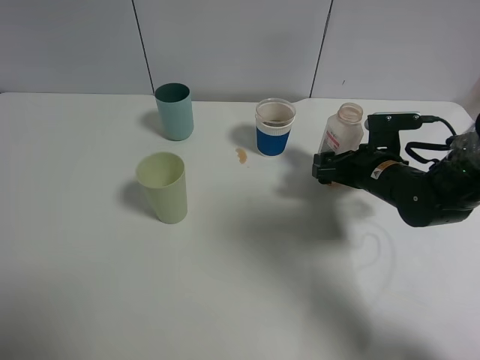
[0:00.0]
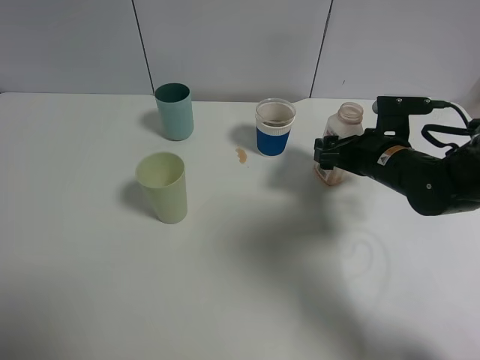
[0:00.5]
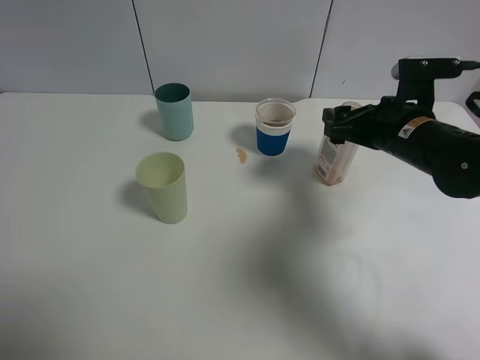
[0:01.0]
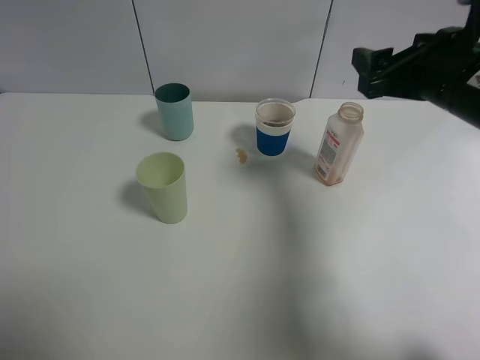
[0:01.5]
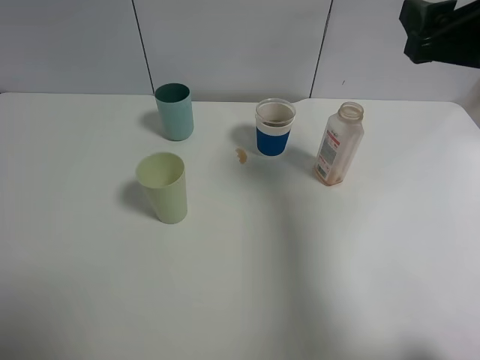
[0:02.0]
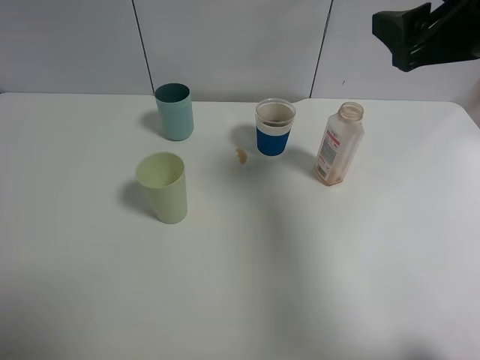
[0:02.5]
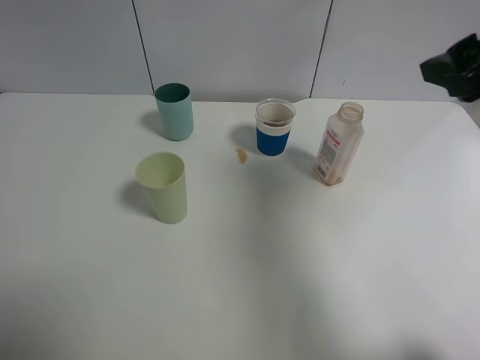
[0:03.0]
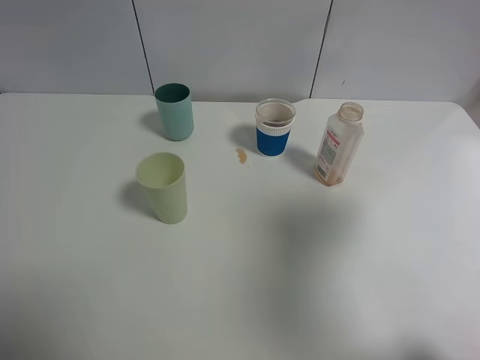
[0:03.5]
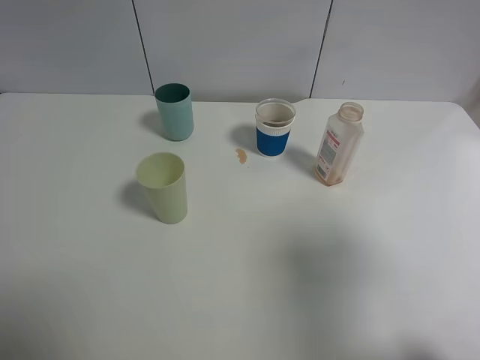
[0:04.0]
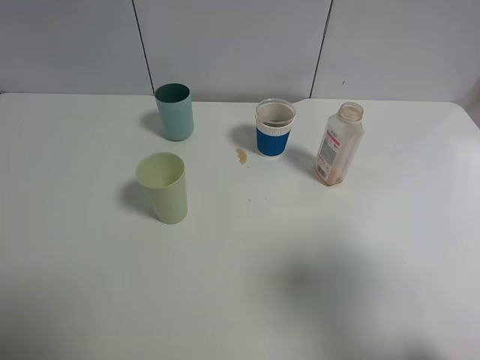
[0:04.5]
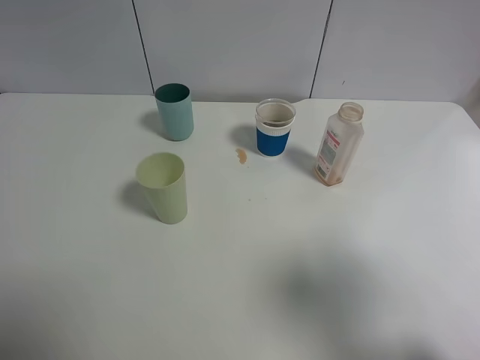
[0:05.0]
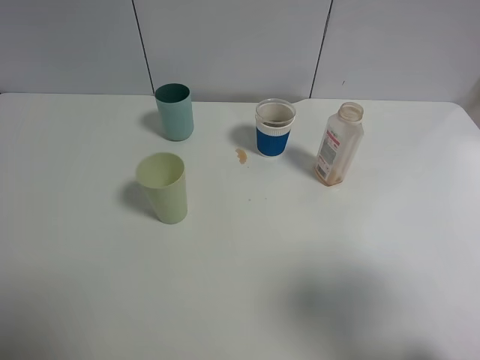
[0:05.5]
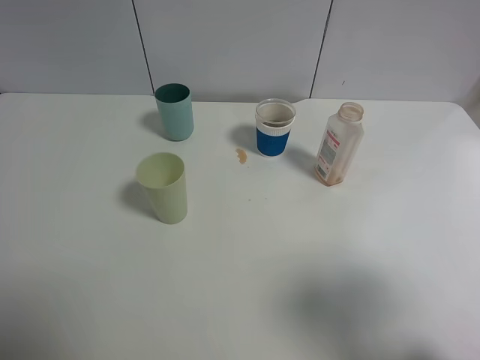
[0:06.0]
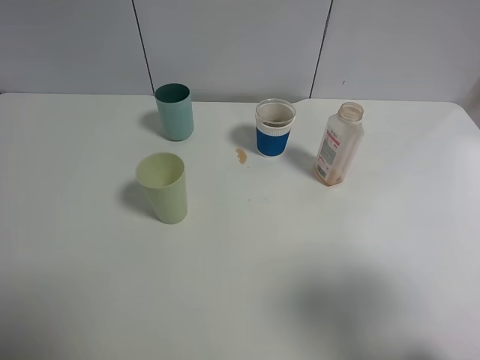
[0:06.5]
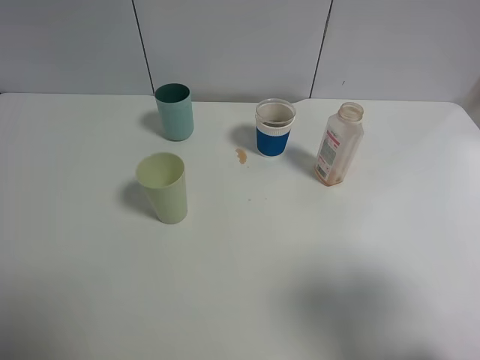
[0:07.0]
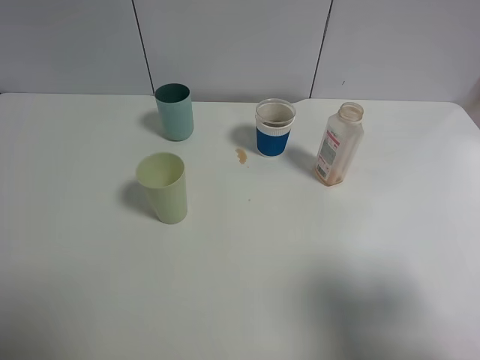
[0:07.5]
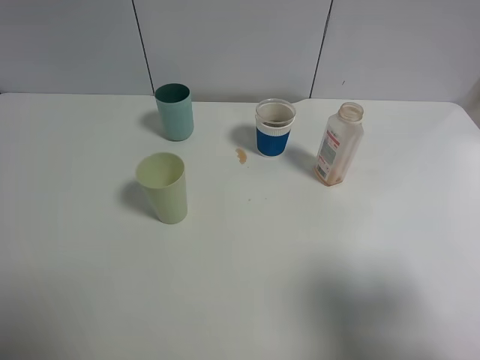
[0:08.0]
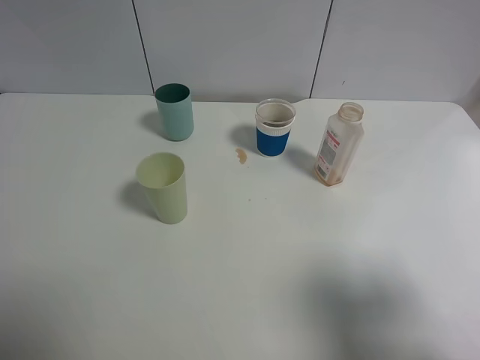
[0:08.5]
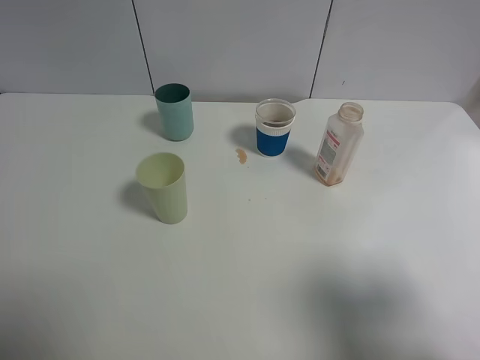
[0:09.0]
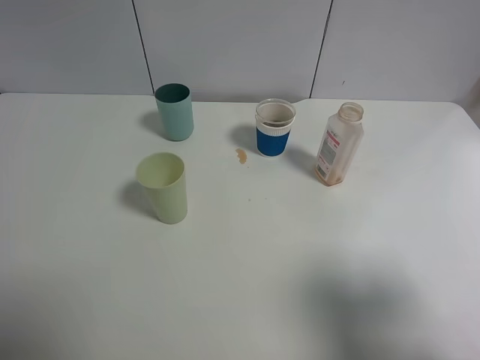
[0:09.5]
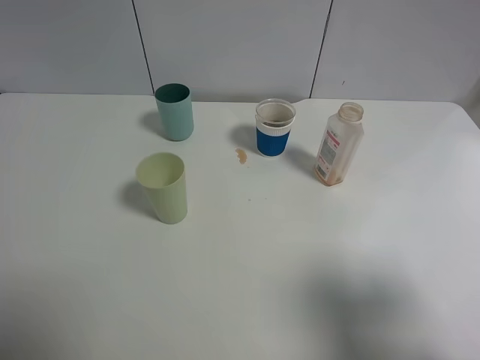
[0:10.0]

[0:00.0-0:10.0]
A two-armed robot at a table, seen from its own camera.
Task of the whole recording: use a gripper to hold the bottle of the drink and pour it into a random cup.
0:00.0 to 0:02.0: The right gripper goes about 20 cm upward.
0:02.0 to 0:04.0: The right gripper heads backward, covering some 15 cm.
0:04.0 to 0:06.0: The right gripper shifts by roughly 5 cm.
